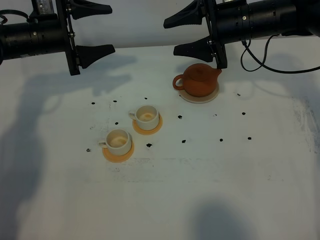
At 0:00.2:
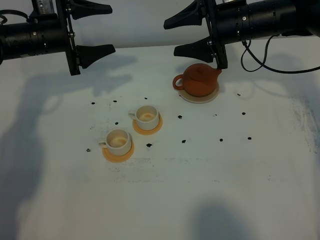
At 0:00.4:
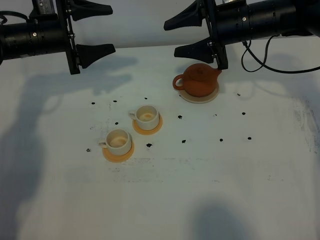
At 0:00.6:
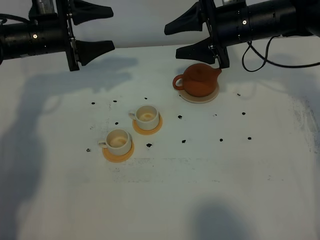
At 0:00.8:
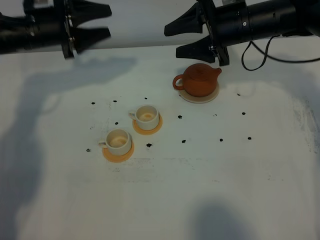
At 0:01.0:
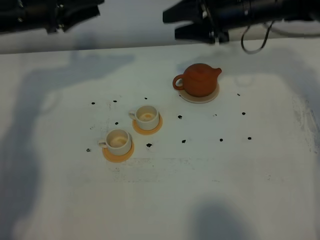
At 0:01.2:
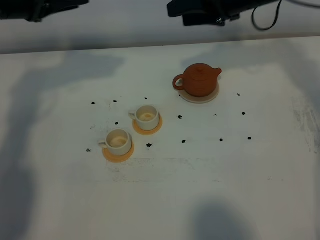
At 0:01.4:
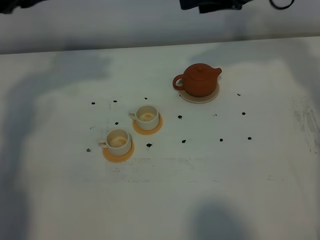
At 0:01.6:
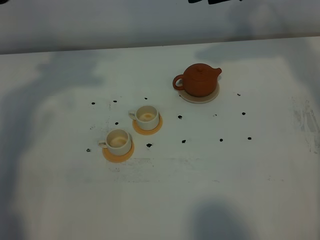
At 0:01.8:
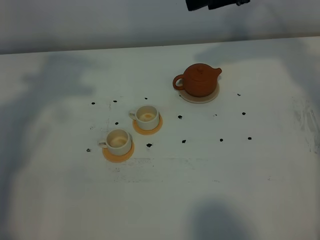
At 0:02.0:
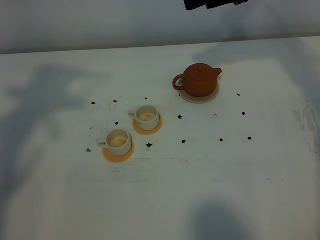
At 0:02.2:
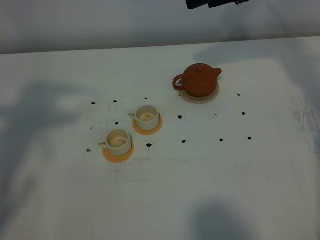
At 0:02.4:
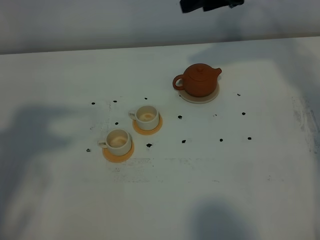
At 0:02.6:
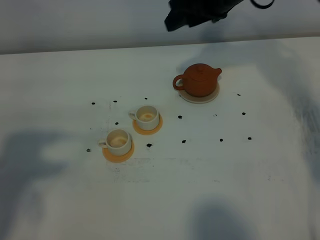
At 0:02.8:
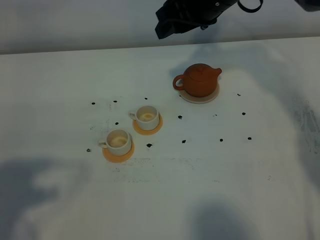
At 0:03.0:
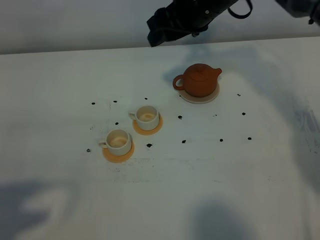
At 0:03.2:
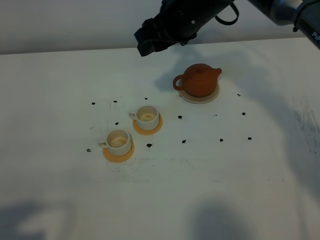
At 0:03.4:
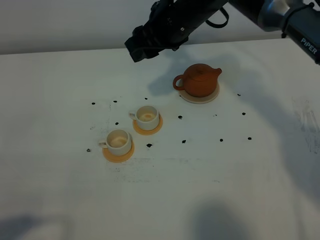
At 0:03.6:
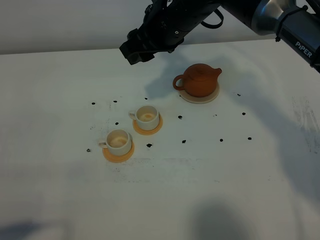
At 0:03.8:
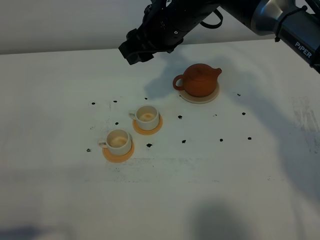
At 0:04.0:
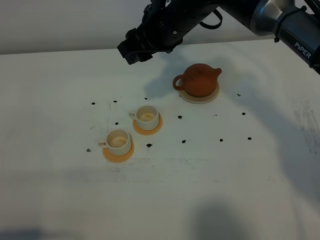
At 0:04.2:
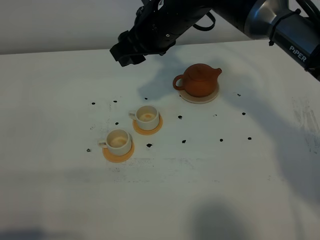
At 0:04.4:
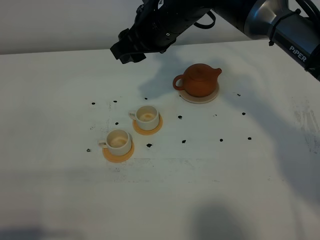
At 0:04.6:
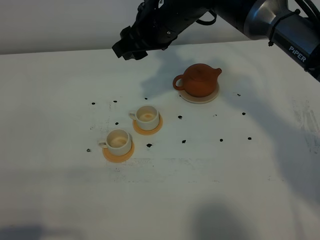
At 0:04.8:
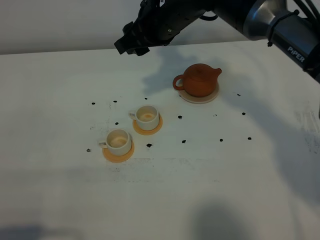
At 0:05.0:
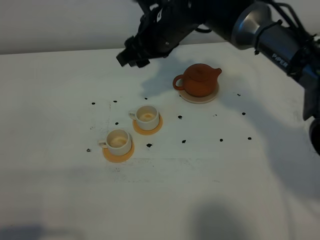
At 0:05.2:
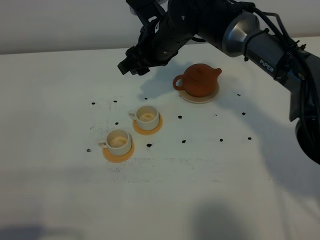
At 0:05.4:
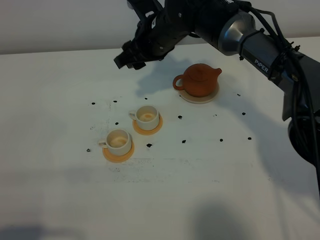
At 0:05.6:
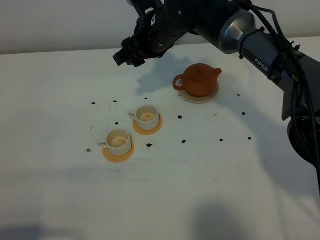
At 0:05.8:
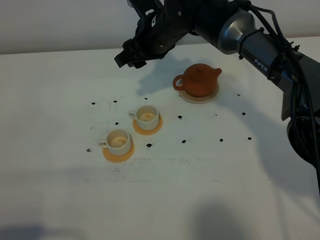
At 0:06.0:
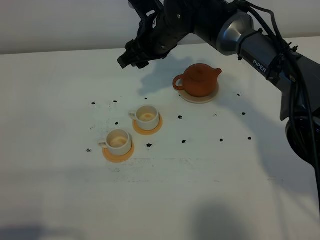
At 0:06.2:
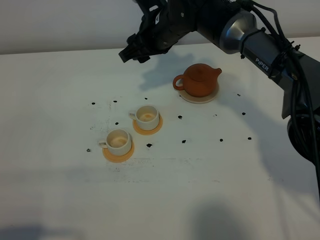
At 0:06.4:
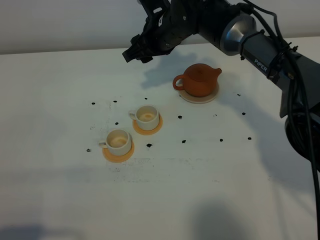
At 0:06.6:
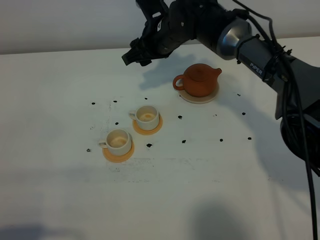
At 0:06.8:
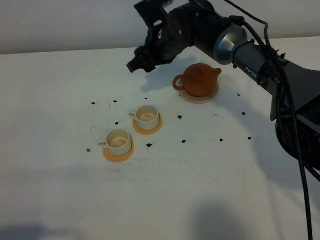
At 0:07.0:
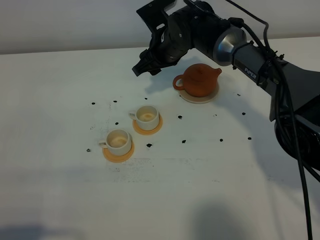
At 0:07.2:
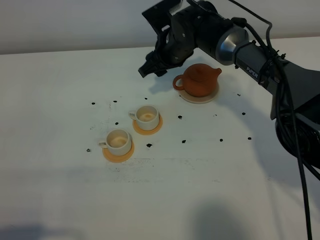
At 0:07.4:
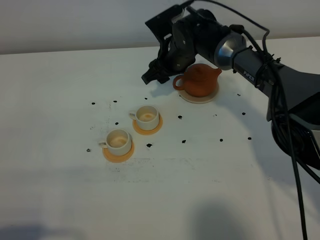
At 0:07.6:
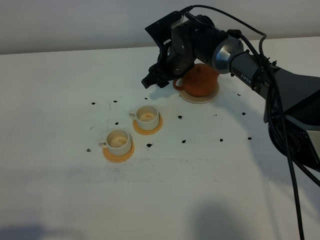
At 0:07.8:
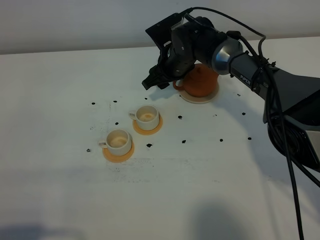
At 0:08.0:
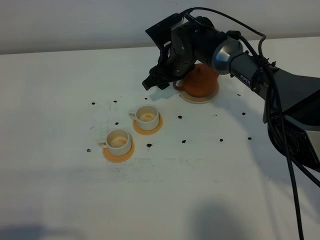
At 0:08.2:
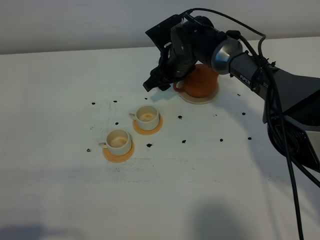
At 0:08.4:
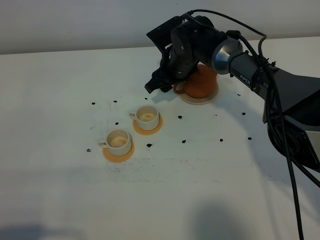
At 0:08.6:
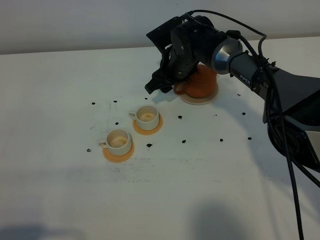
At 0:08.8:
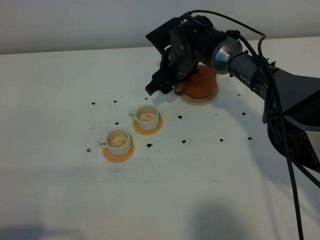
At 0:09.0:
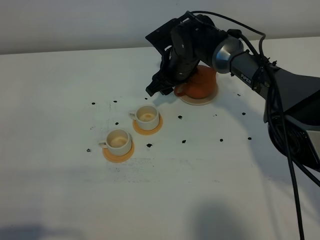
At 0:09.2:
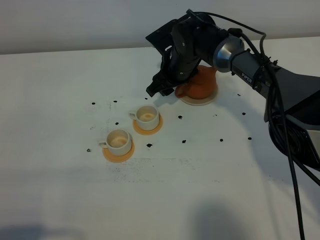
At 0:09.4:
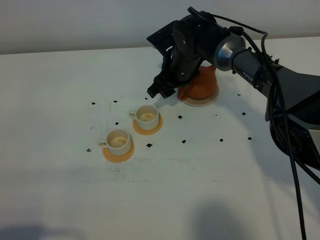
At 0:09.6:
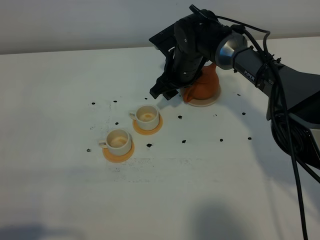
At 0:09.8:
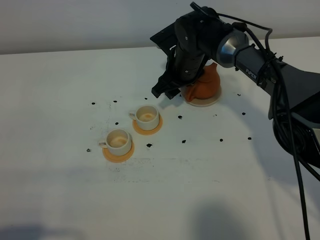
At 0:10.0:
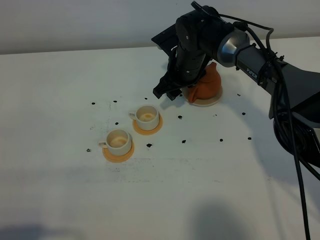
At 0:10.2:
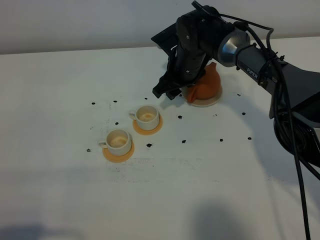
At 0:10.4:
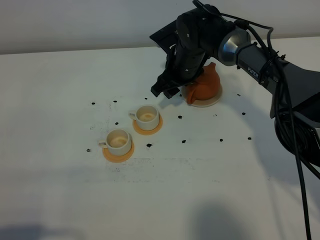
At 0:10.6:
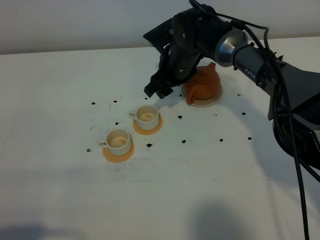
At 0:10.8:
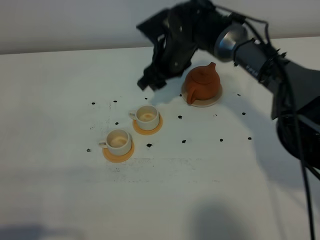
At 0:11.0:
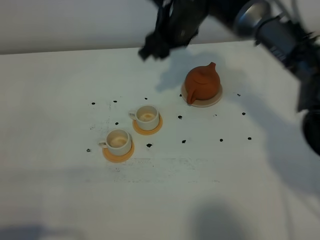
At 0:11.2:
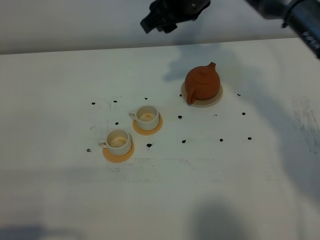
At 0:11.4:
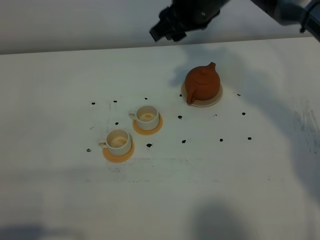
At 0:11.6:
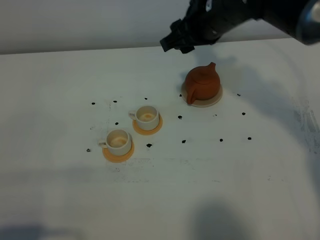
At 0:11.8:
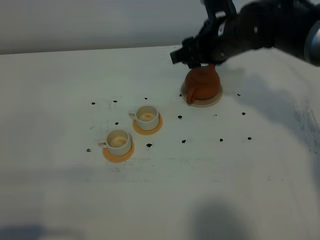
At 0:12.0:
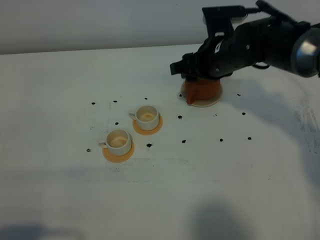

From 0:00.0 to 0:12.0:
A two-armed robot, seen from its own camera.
Task of the whole recording: grasp the brown teapot and pour the tea into the two white teacups one by one, put the brown teapot back in its original place.
From 0:00.0 to 0:01.6: The left gripper heads upward and backward, covering some 25 cm, and closes. Meanwhile the right gripper shifts about 10 cm upward.
From 0:01.6 to 0:03.0: The right gripper shifts approximately 10 cm to the left; the left gripper travels backward by about 30 cm.
From 0:03.0 to 0:04.4: The right gripper travels to the left by some 5 cm. Meanwhile the left gripper heads downward, covering approximately 10 cm.
From 0:04.4 to 0:06.0: The right gripper heads downward, covering some 5 cm.
From 0:06.0 to 0:07.6: The right gripper moves downward, about 10 cm.
From 0:07.6 to 0:10.4: The grippers make only small movements.
From 0:10.4 to 0:12.0: The right gripper travels backward and to the right by some 10 cm, and travels upward and back again, about 15 cm each way.

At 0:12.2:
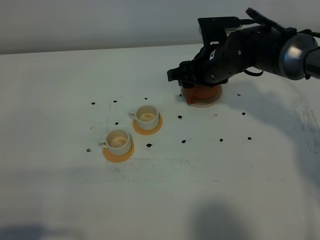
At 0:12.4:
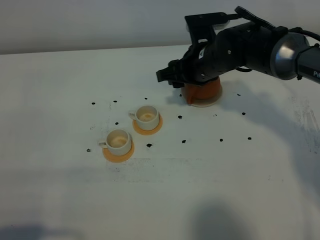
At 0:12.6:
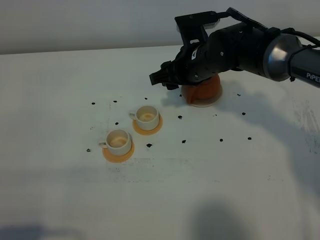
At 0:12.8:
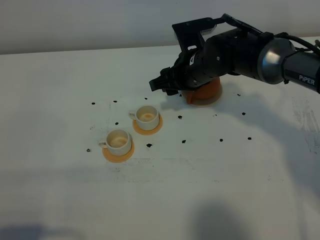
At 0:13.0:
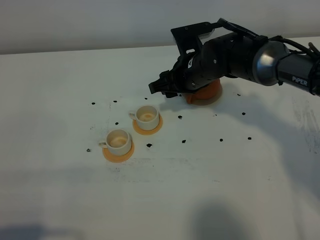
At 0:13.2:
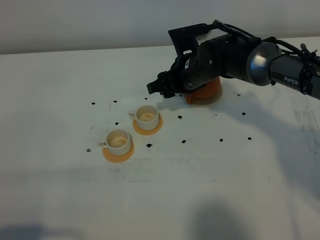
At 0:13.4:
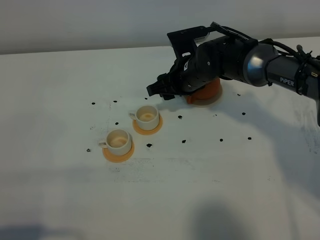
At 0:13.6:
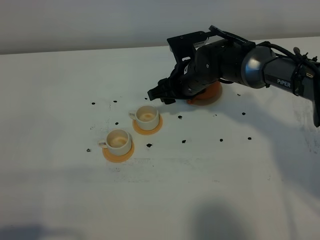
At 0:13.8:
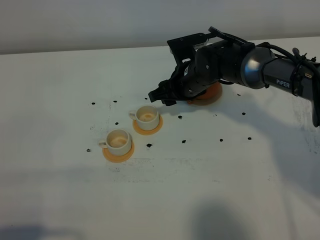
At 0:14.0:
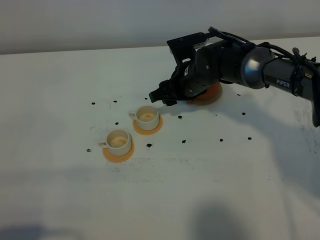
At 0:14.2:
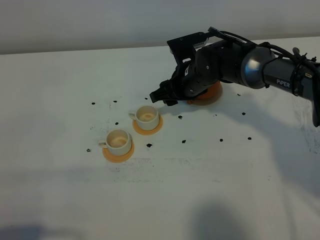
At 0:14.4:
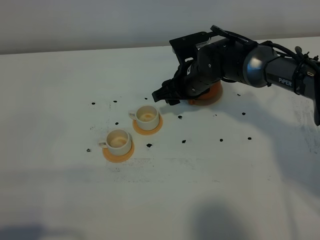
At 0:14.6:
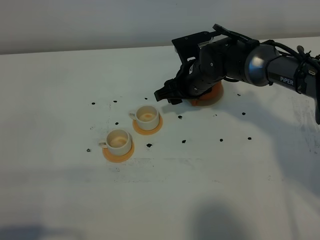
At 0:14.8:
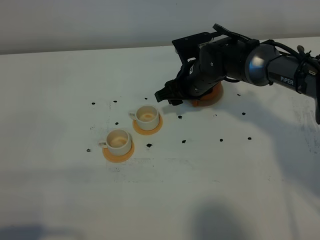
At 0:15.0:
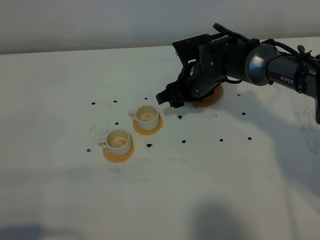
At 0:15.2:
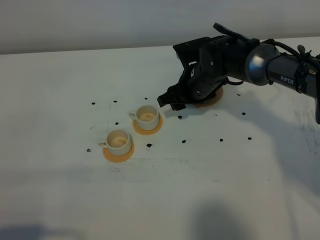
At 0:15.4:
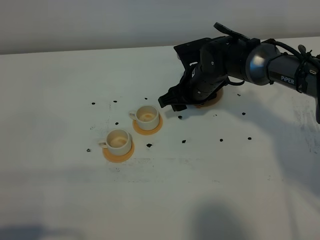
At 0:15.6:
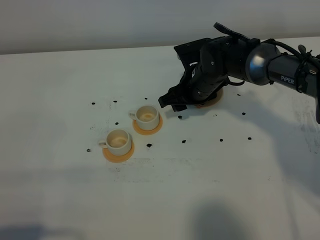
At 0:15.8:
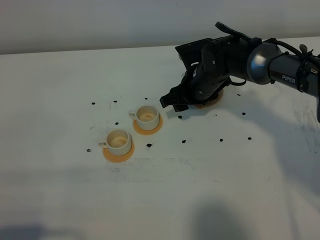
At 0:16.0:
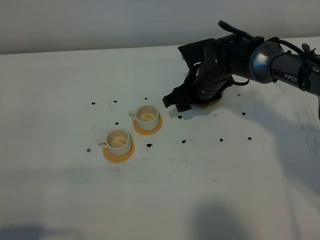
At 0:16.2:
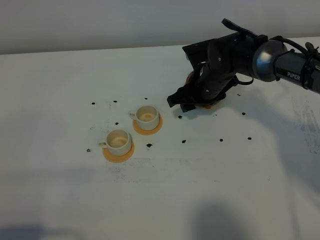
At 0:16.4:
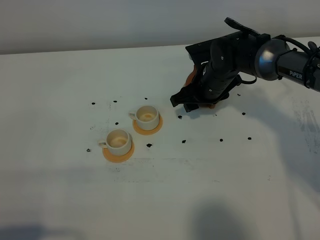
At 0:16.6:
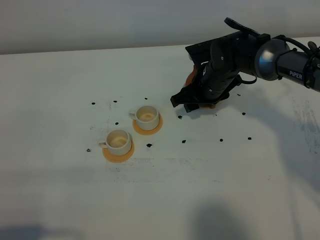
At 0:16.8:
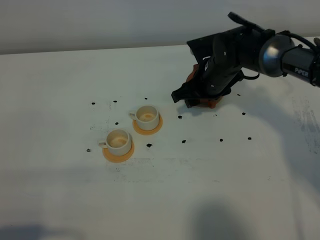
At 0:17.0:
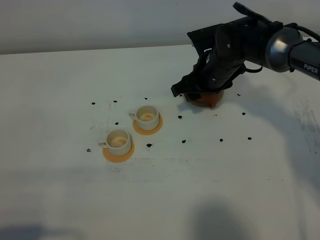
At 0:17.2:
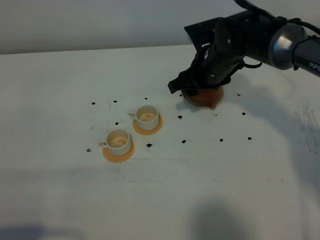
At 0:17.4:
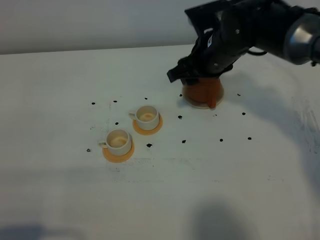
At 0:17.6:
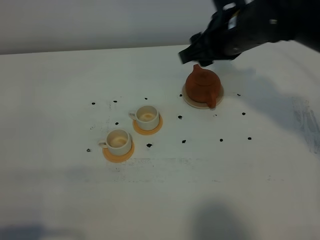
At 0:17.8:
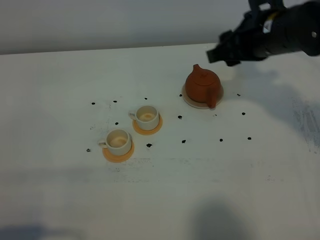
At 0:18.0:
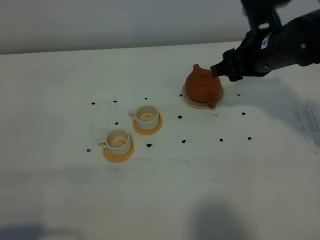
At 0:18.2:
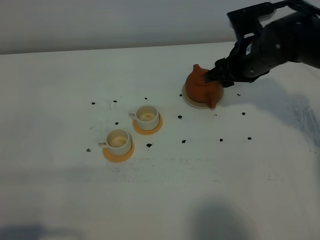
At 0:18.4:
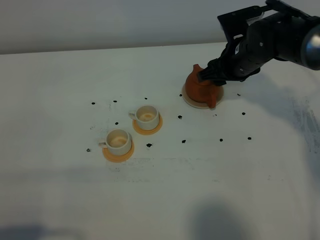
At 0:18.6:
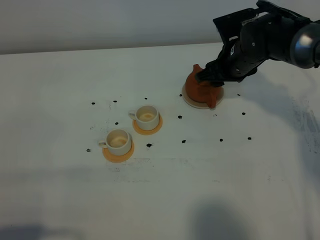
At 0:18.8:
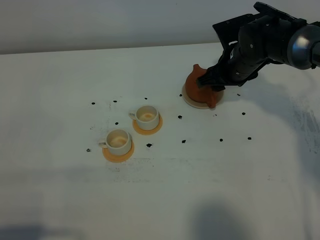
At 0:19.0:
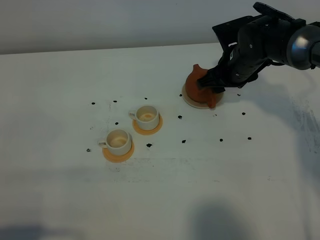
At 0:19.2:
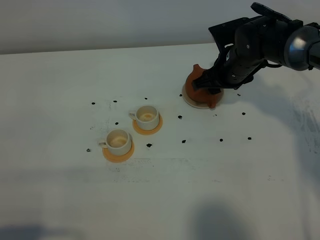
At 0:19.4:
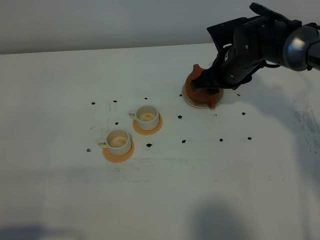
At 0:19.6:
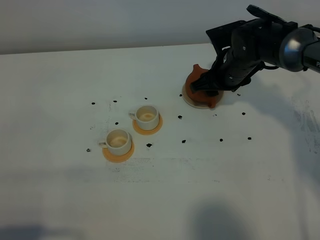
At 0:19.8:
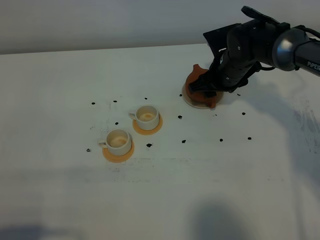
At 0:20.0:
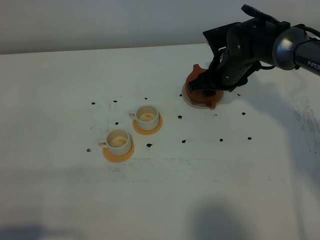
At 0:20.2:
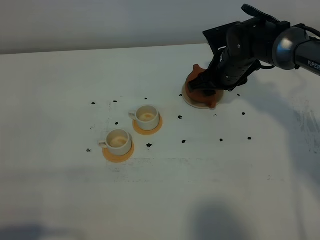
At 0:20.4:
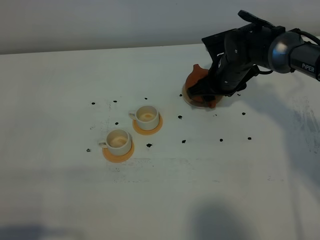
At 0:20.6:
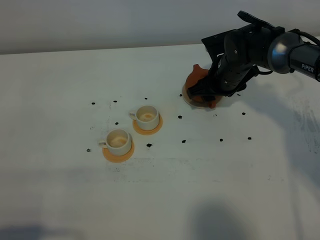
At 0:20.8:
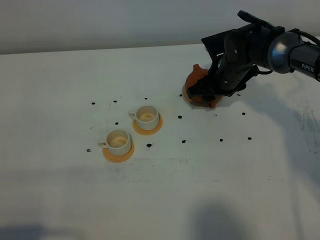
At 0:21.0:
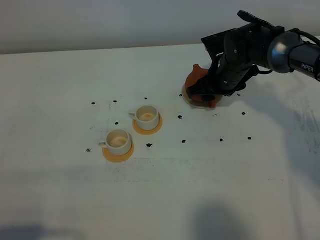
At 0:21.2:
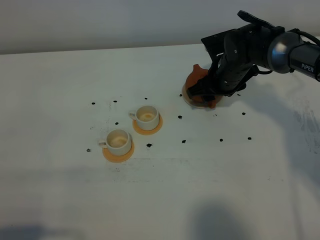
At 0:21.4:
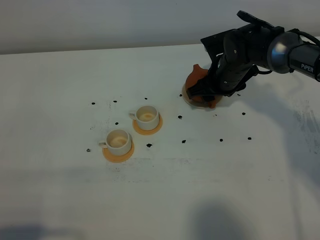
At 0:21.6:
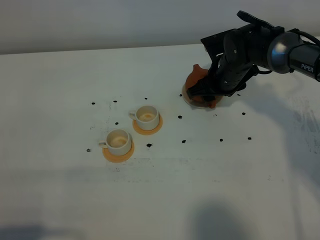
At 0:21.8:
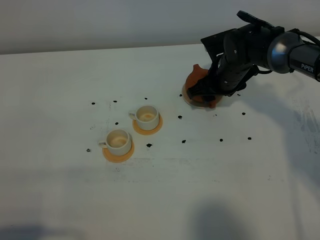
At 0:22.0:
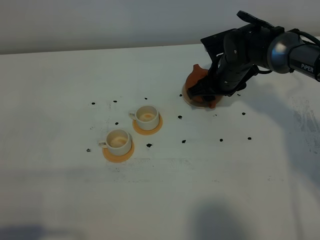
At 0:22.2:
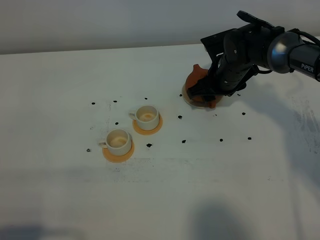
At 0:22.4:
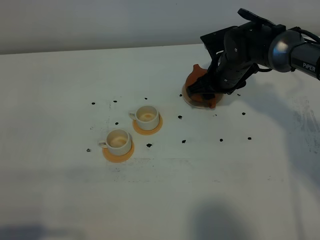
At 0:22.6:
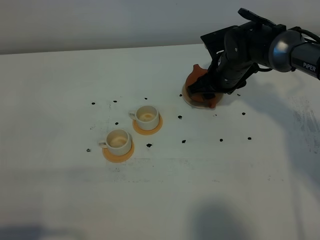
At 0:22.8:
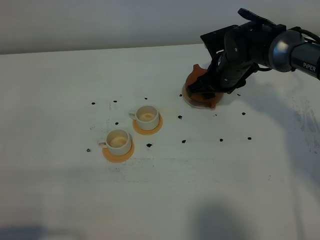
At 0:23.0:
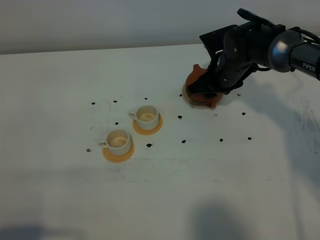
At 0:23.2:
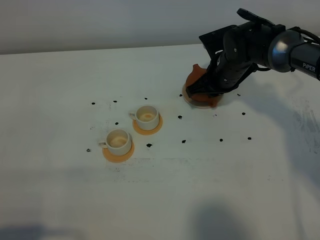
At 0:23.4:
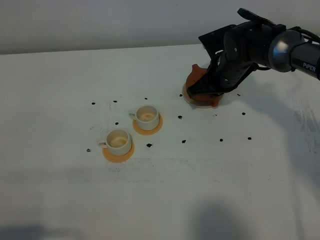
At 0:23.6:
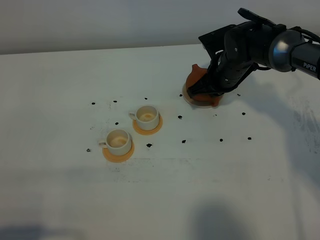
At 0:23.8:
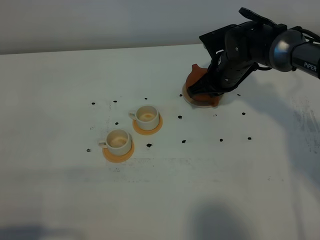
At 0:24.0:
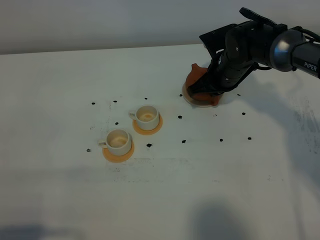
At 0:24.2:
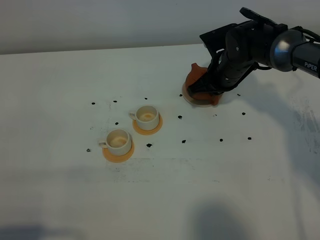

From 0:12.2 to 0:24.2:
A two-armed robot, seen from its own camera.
Task of the whole recording: grasp the brown teapot and pour the tea into the two white teacups one by one, put the brown teapot back in its original place.
From 0:12.2 to 0:13.8: The right gripper ends up about 5 cm from where it was.
From 0:13.8 to 0:16.6: The grippers make only small movements.
From 0:16.6 to 0:18.2: The right gripper shifts approximately 10 cm upward and to the right.
From 0:18.2 to 0:19.8: The right gripper is displaced downward by some 5 cm.
From 0:19.8 to 0:22.6: The two grippers keep their place.
From 0:22.6 to 0:24.2: The right gripper closes up.
